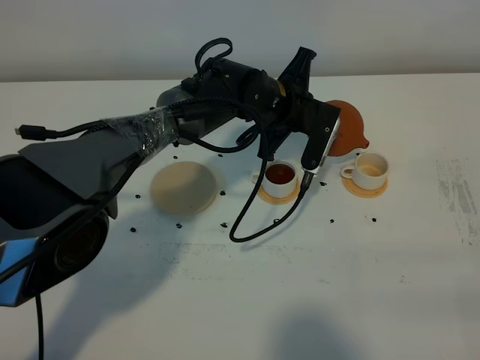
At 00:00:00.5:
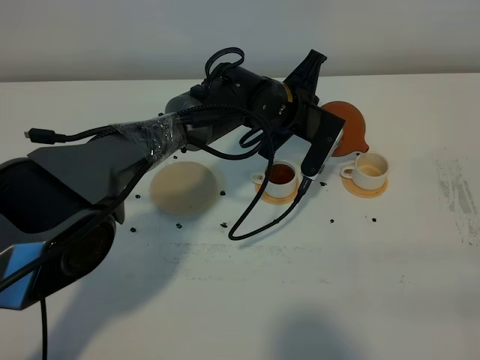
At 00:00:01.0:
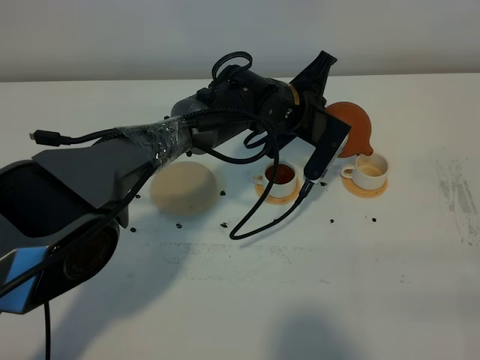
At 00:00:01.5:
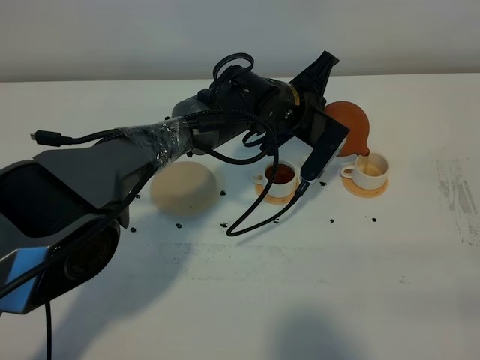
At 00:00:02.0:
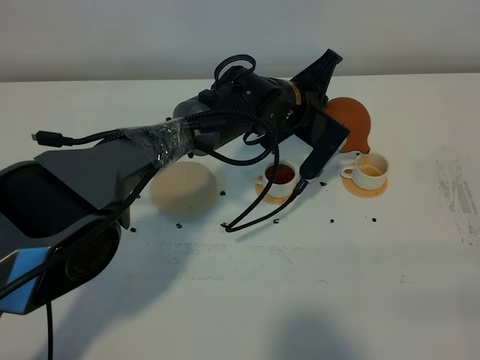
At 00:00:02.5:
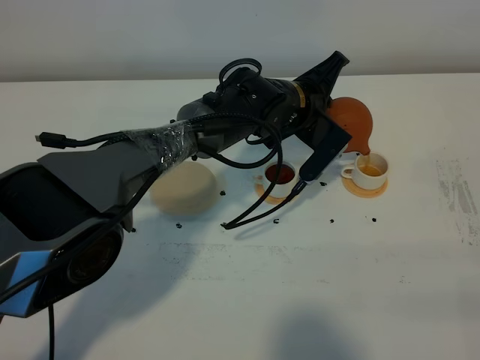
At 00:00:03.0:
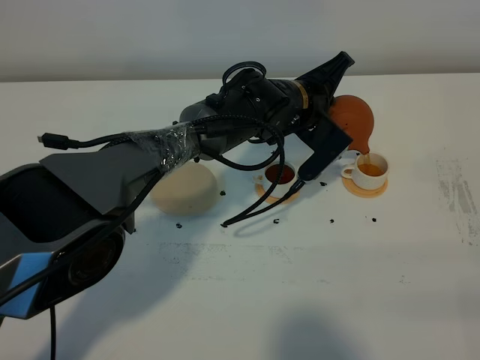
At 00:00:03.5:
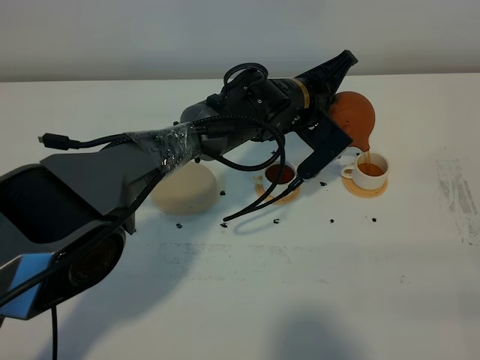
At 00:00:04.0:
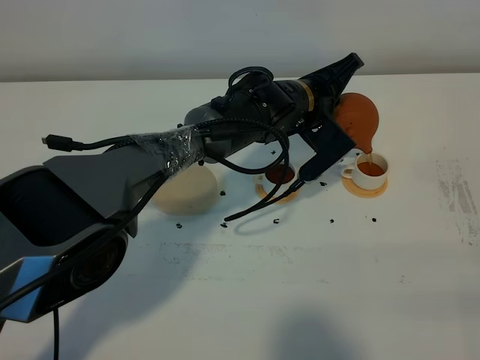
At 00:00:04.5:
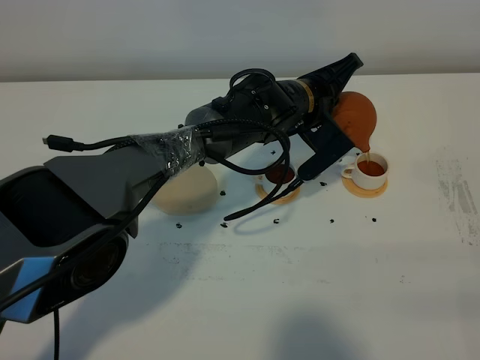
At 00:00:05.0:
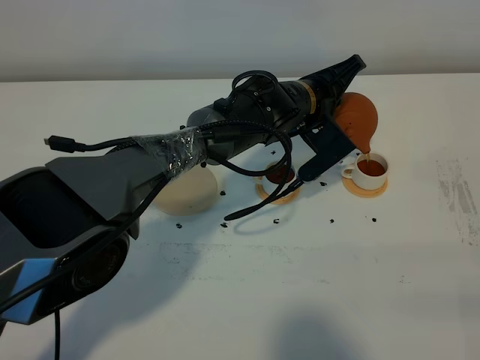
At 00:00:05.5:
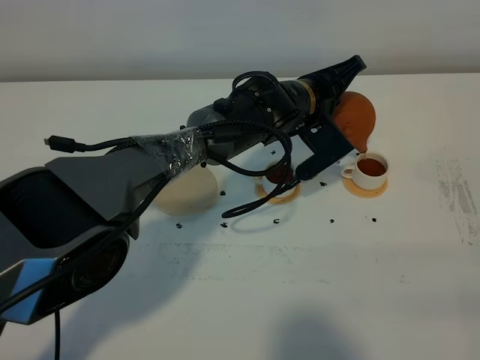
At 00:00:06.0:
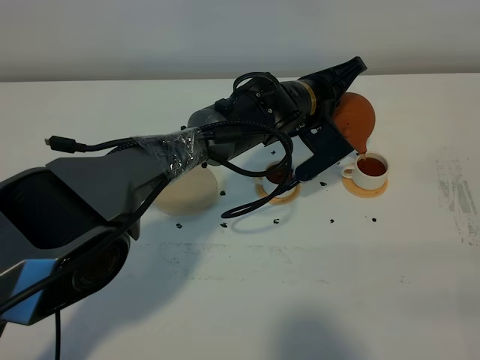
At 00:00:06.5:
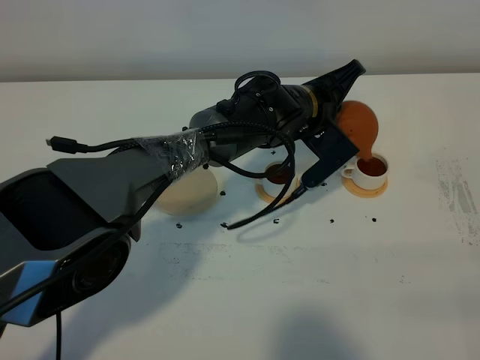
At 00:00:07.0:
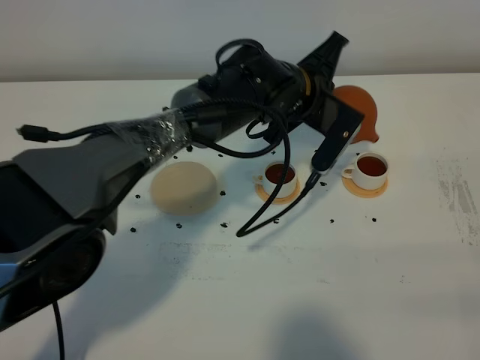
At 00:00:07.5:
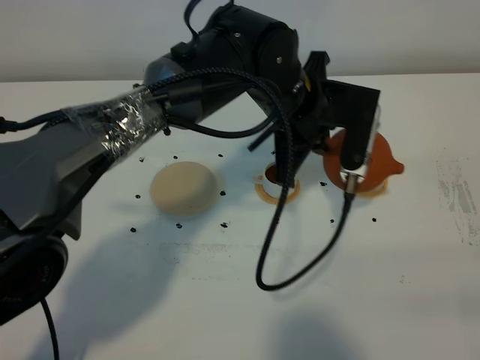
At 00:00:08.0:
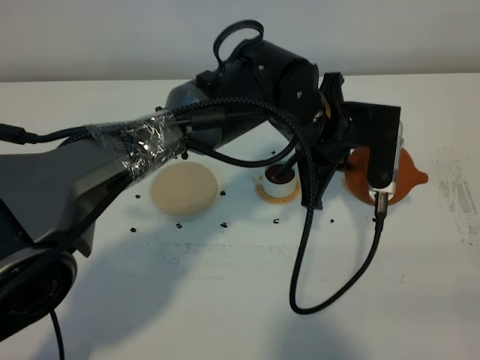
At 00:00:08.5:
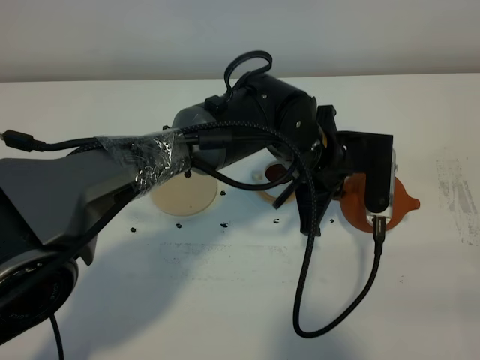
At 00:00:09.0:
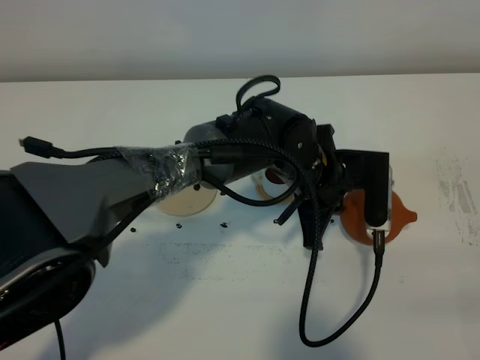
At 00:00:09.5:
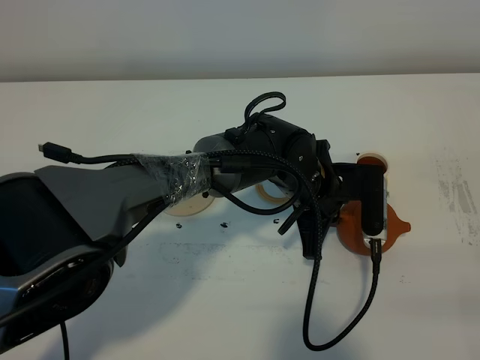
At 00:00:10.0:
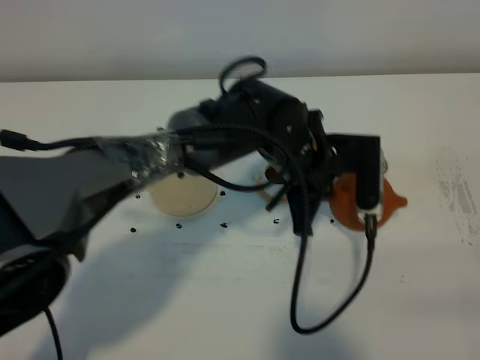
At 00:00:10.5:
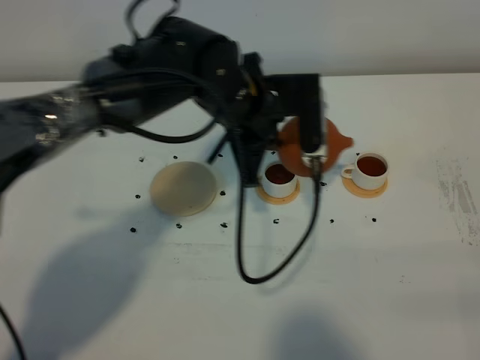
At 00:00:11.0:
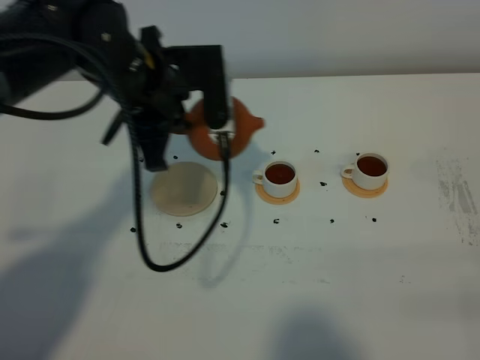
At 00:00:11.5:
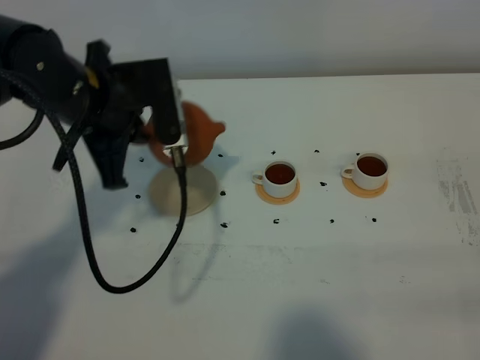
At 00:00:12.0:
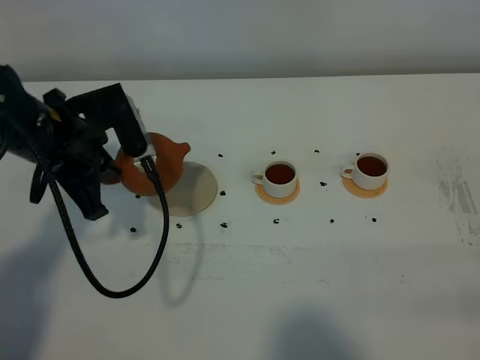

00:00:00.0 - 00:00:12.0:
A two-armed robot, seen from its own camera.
Task of the whole recording: grasp the brown teapot and pour the tea into the two white teacups one by one, put the brown teapot back in its original place.
Step, 00:00:00.0 - 00:00:07.0: Pour tea into the teacup with the left gripper.
00:00:00.0 - 00:00:02.0: The grippers stay close to where they were, moving slightly.
00:00:02.0 - 00:00:04.0: There are only small adjustments of the grippers.
00:00:04.0 - 00:00:06.0: Both grippers stay about where they are.
00:00:06.0 - 00:00:08.0: The left gripper is displaced backward by approximately 10 cm.
00:00:10.0 - 00:00:12.0: The left gripper shifts about 25 cm to the left.

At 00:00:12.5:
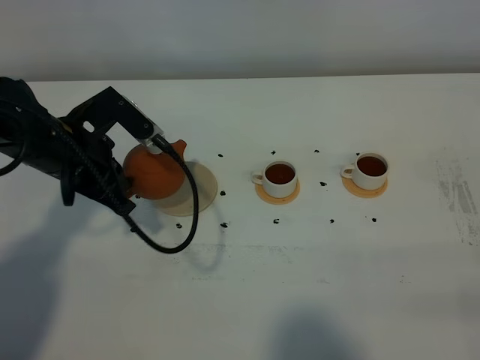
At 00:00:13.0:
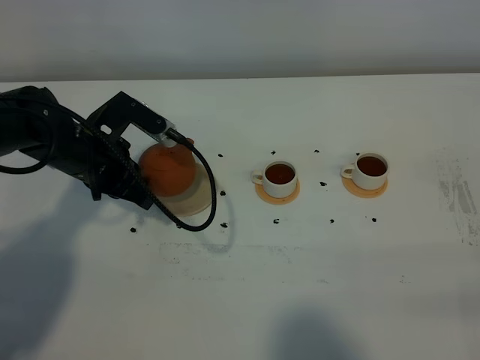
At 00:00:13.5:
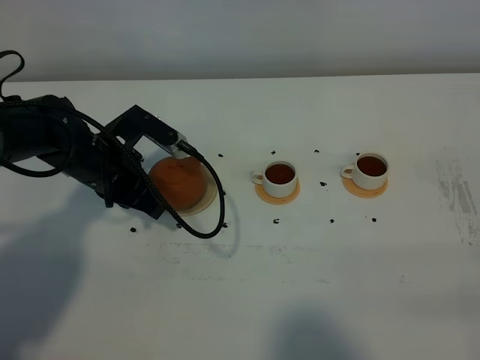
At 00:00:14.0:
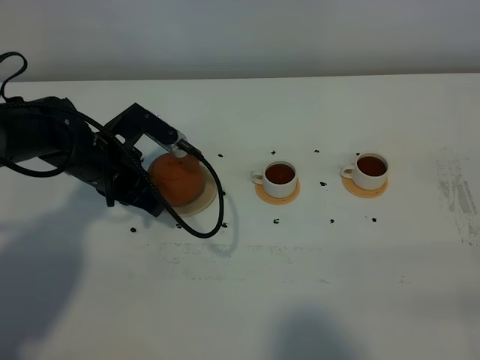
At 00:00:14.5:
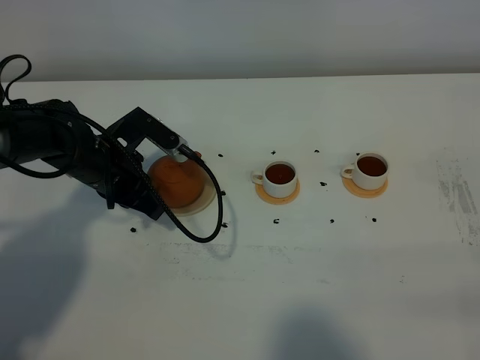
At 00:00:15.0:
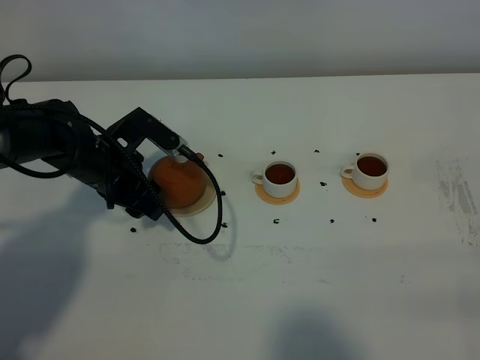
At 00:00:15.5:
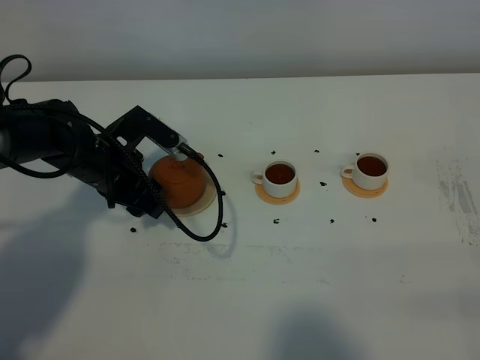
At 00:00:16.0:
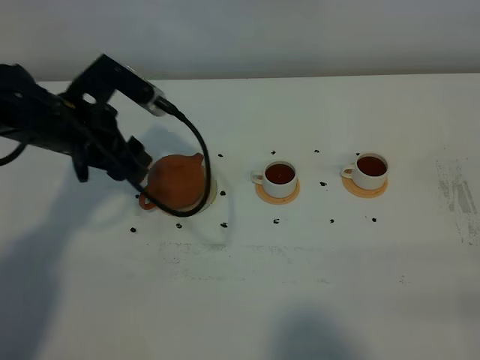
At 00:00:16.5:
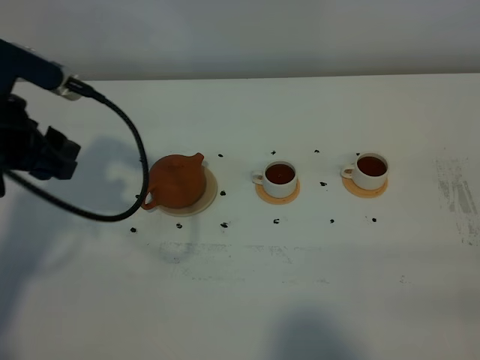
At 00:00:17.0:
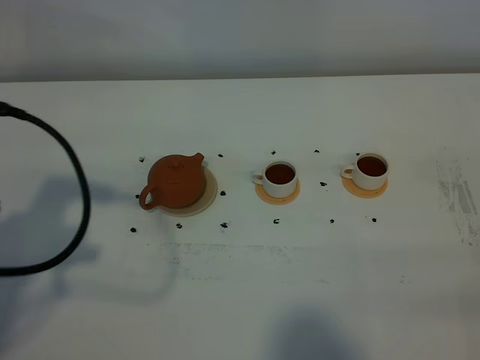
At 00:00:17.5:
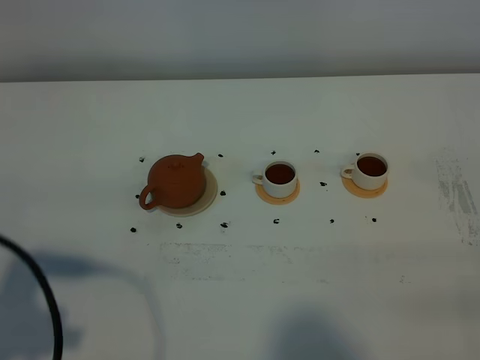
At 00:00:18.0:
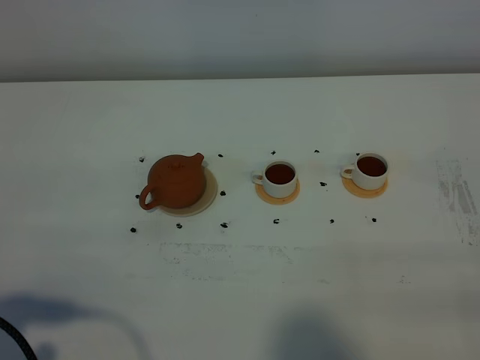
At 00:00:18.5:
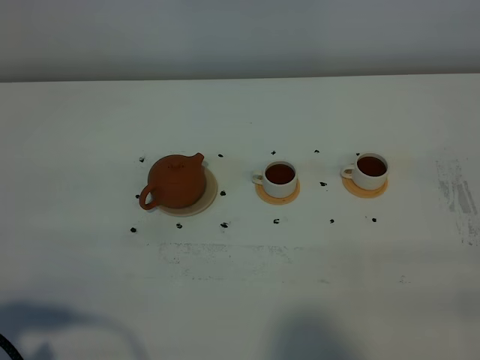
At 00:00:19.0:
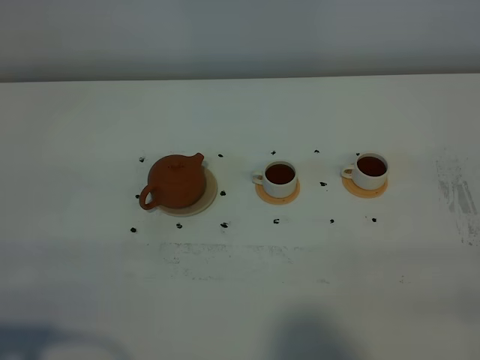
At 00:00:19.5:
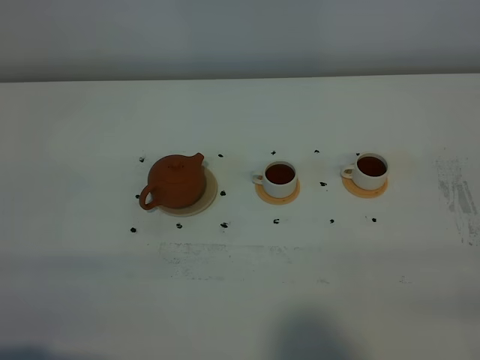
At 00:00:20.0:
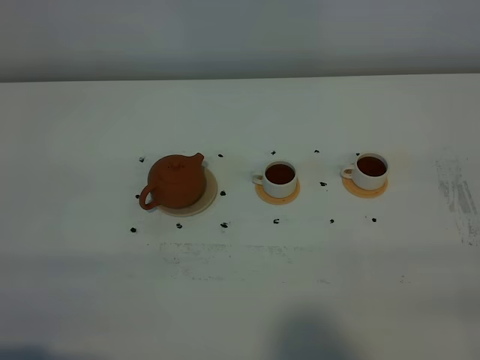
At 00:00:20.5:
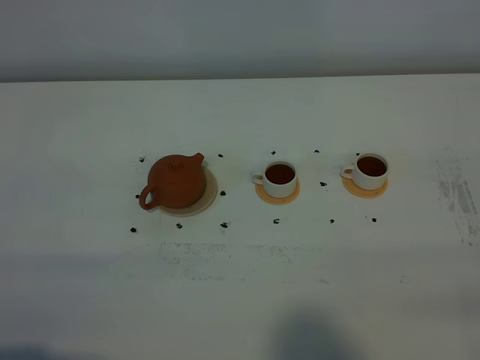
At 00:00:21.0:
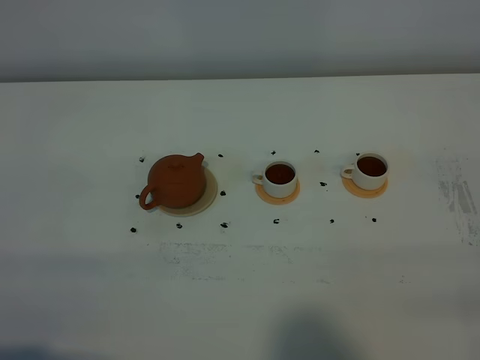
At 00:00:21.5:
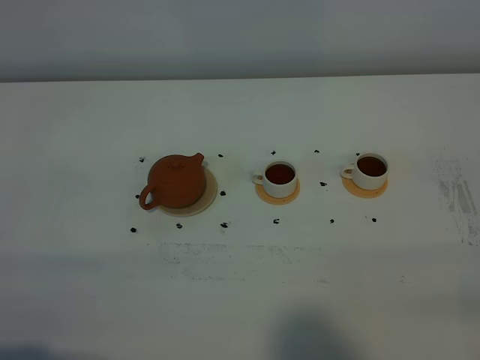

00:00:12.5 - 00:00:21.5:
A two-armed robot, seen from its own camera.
Task of the whole recording: grasp the brown teapot and pour the tea into the two white teacups one by one, put the brown teapot back in its original place.
00:00:12.5 - 00:00:14.5: The left gripper heads downward, covering some 5 cm.
00:00:14.5 - 00:00:17.0: The left gripper is displaced upward, backward and to the left by about 30 cm, and opens its fingers.
00:00:17.0 - 00:00:19.5: The left gripper goes some 20 cm backward.
00:00:19.5 - 00:00:21.5: Both grippers stay about where they are.
